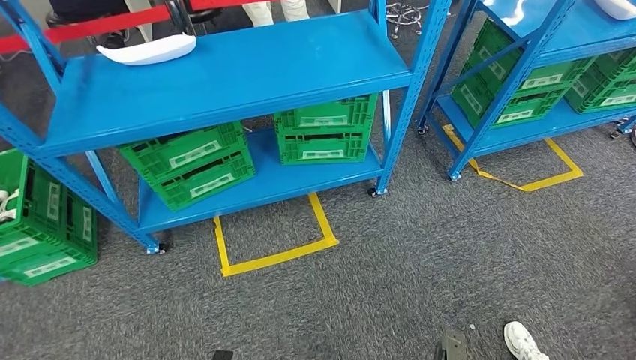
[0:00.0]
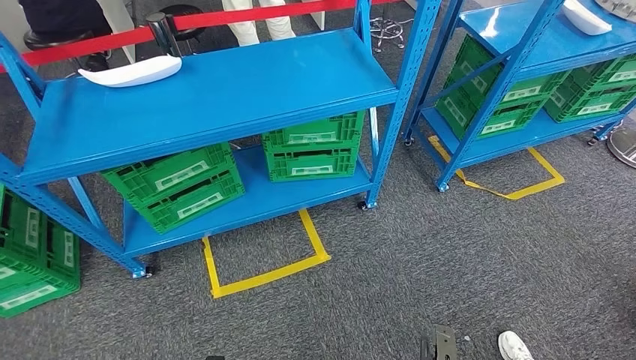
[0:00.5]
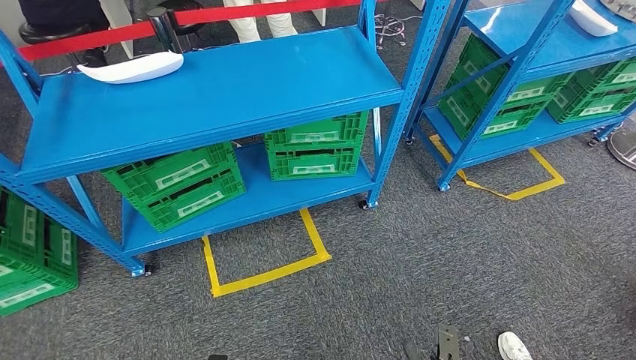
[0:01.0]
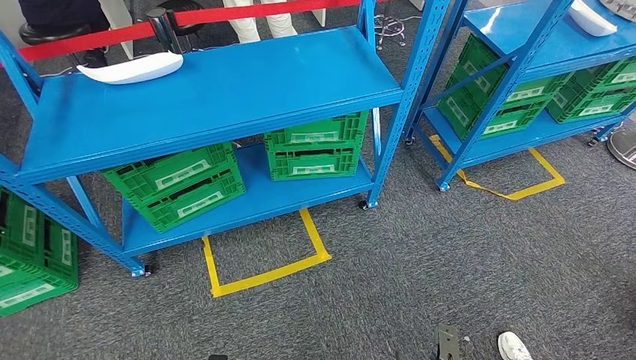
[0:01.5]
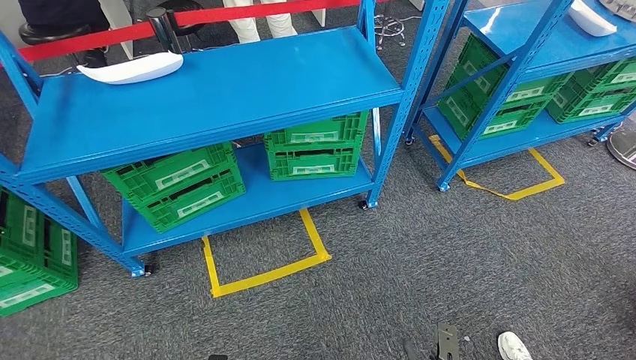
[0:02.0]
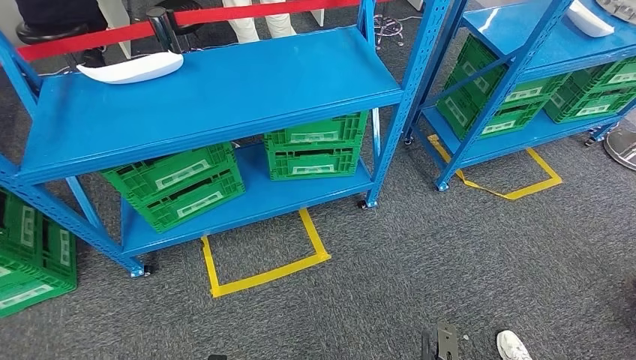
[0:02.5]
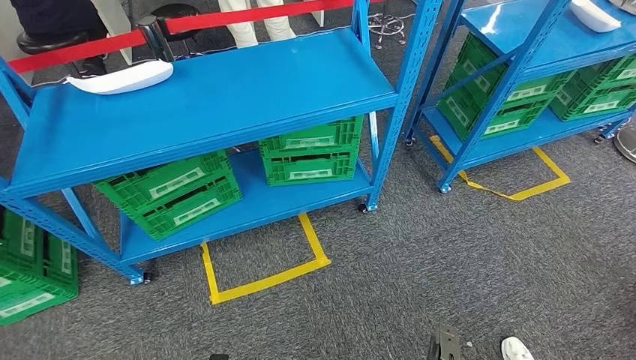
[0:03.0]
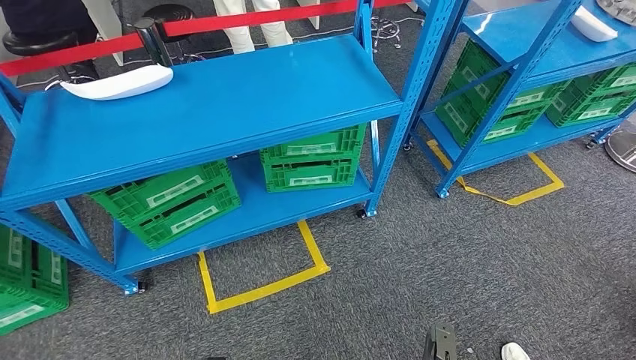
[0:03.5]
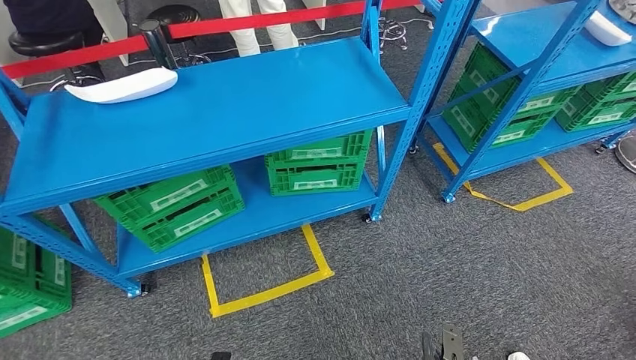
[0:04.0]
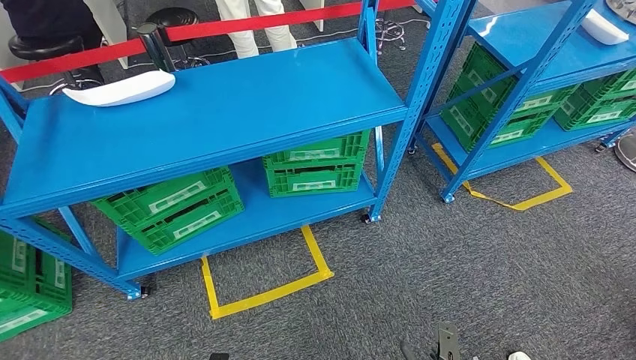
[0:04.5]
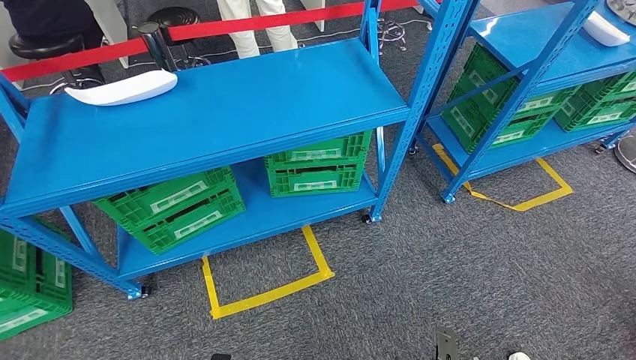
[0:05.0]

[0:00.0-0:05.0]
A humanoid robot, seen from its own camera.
Step, 0:00.0 to 0:05.0: Return to the initial position at the workbench.
